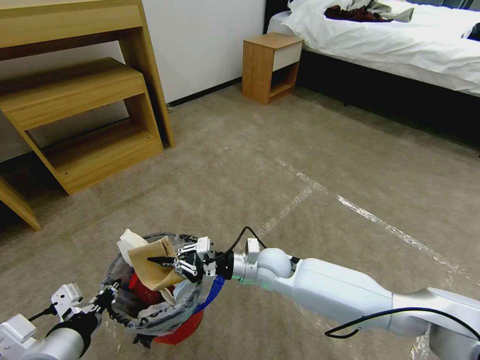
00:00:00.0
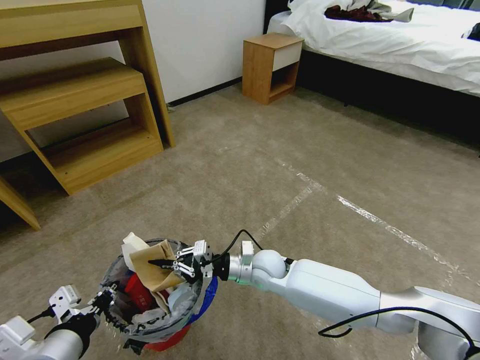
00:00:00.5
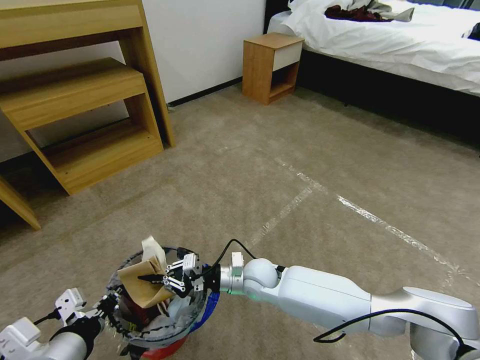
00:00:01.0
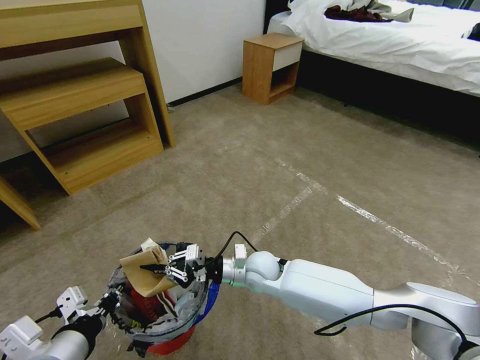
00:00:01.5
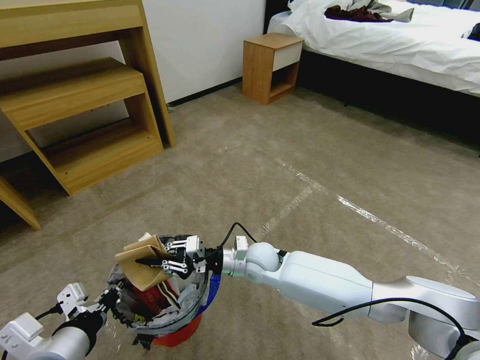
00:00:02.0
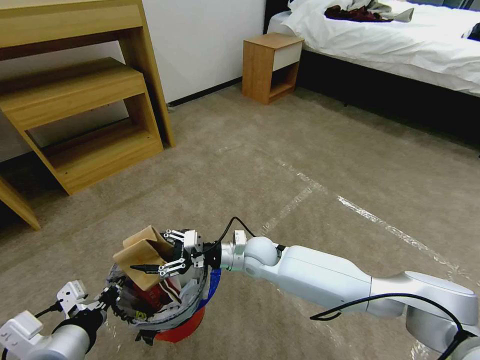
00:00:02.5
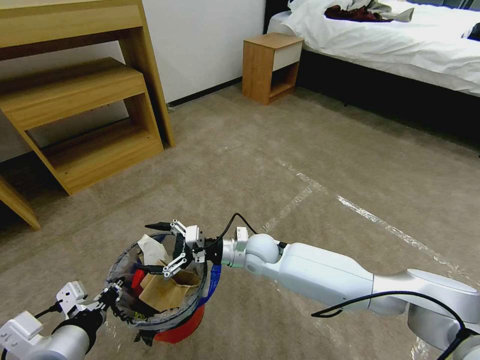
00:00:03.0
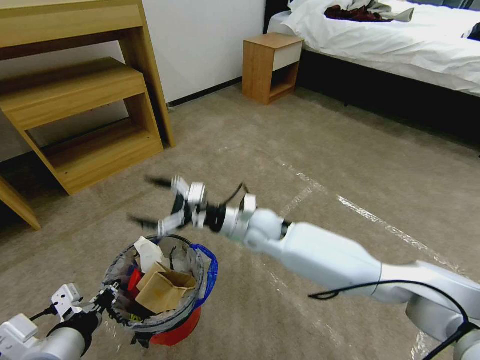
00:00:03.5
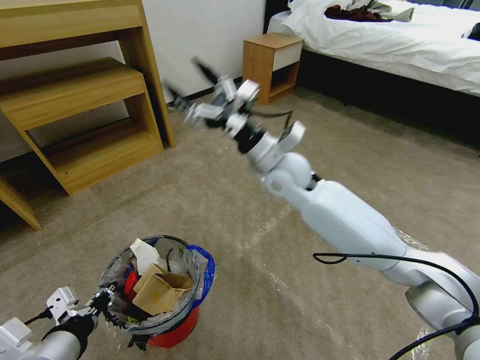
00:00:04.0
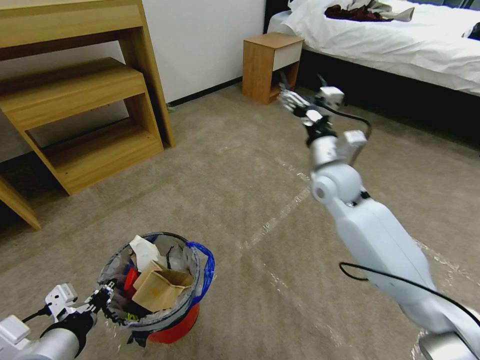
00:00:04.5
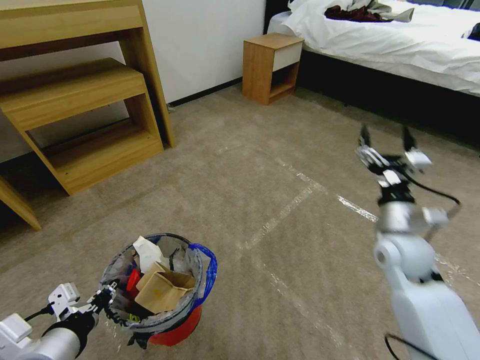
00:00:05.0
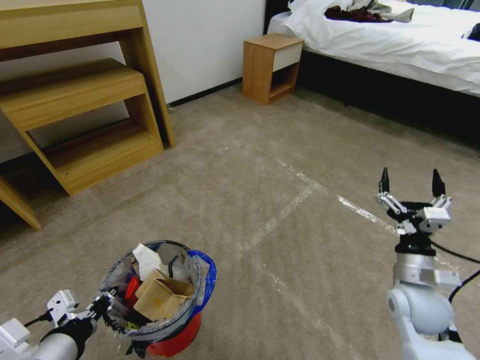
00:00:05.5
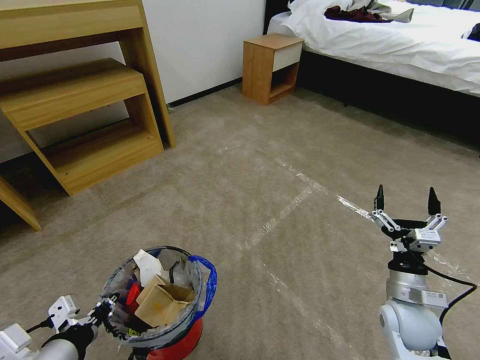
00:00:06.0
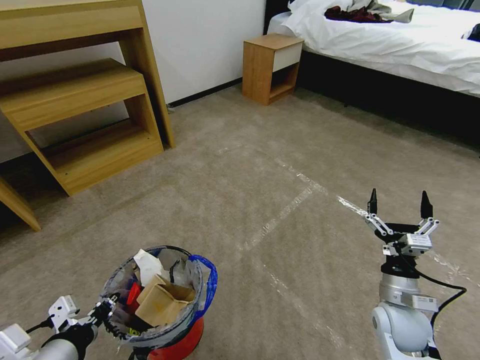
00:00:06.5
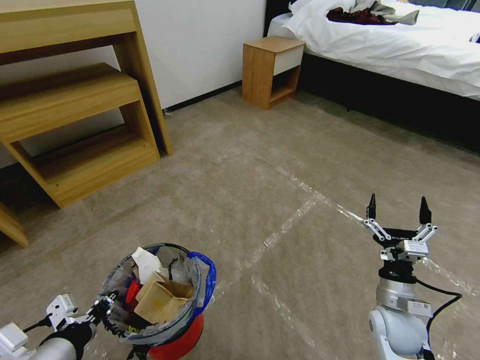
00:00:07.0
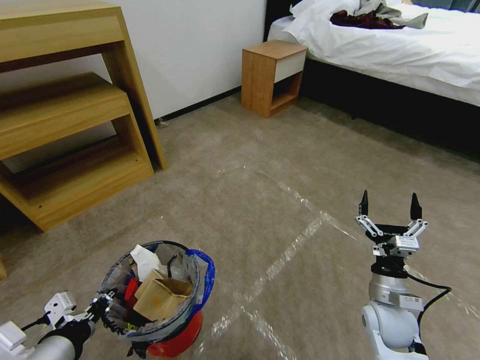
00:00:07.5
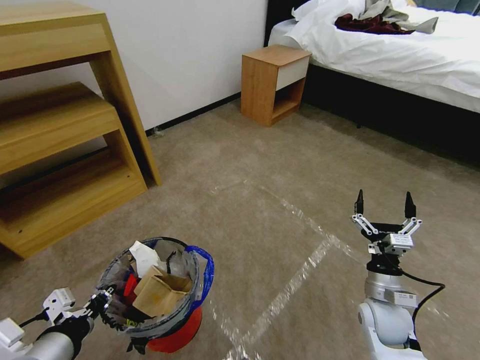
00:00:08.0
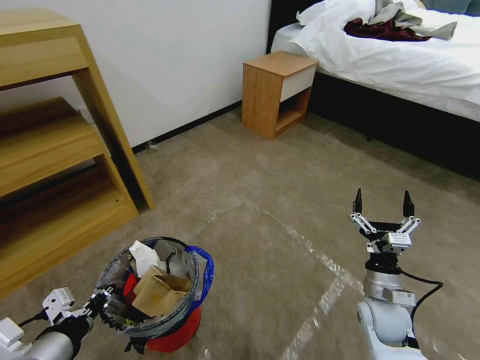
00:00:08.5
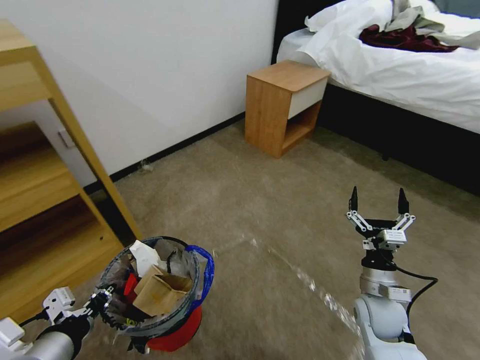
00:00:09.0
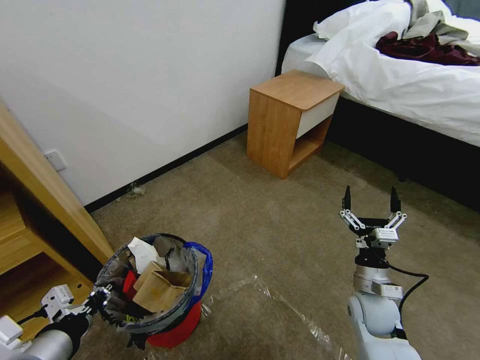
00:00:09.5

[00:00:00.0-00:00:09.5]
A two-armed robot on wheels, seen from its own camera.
Task of the whole recording: Pick up the trash bin and place the garbage on the floor into it.
00:00:00.0 to 00:00:02.0: The grippers stay close to where they were, moving slightly.
00:00:02.0 to 00:00:04.0: The right gripper is displaced upward by approximately 25 cm, and opens.
00:00:04.0 to 00:00:05.5: The right gripper heads to the right, backward and downward, covering some 35 cm.
00:00:05.5 to 00:00:07.5: The right gripper shifts approximately 5 cm downward.

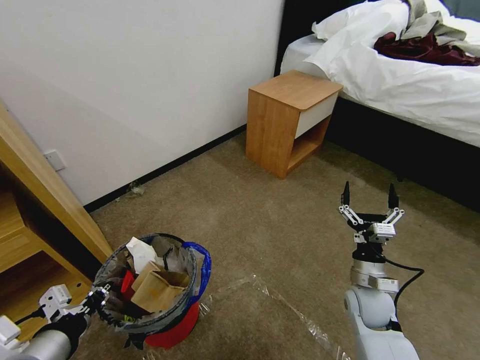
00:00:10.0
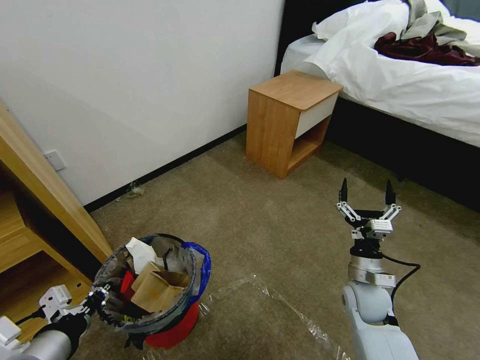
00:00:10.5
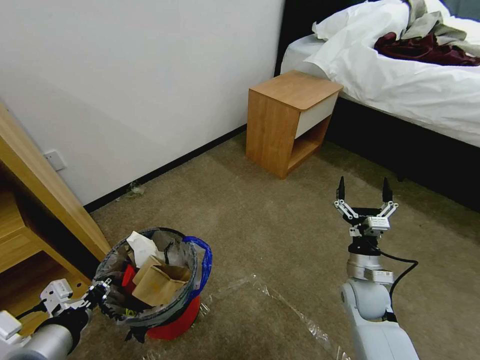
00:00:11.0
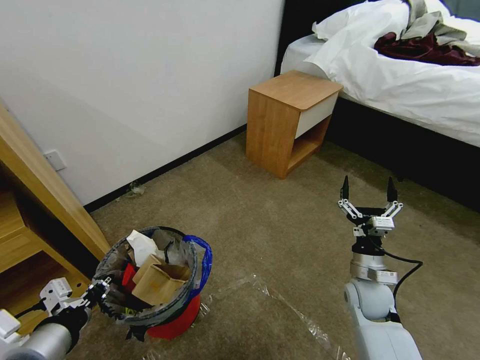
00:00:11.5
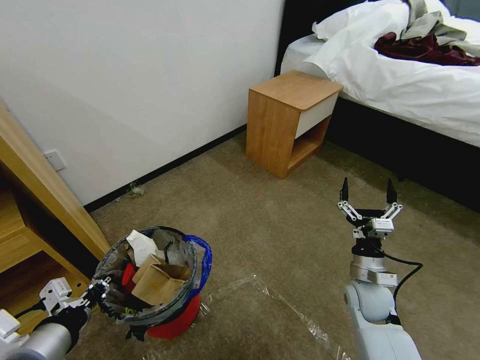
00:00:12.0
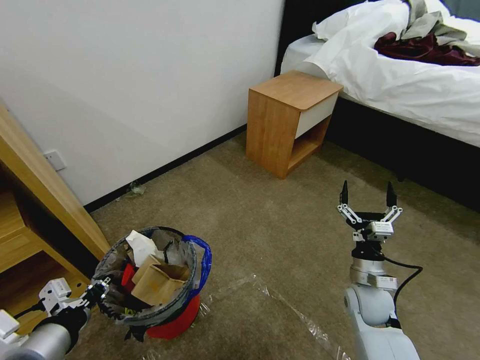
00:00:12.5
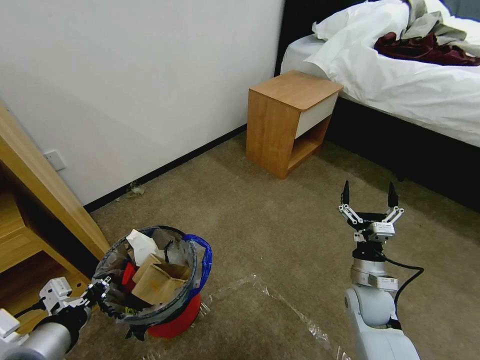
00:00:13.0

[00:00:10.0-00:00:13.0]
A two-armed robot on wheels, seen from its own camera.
Task of the whole recording: Pick up the trash bin and place the garbage on the floor into it.
00:00:10.0 to 00:00:11.5: The grippers make only small movements.
00:00:11.5 to 00:00:13.0: Both grippers stay about where they are.
